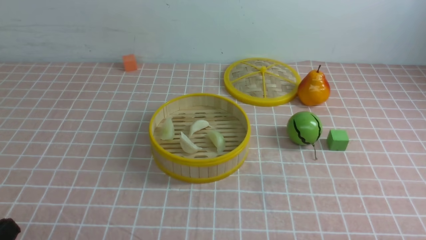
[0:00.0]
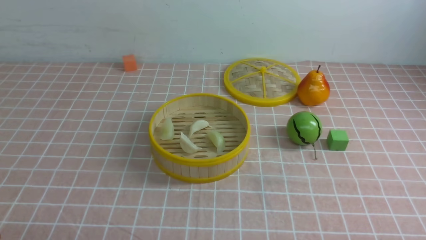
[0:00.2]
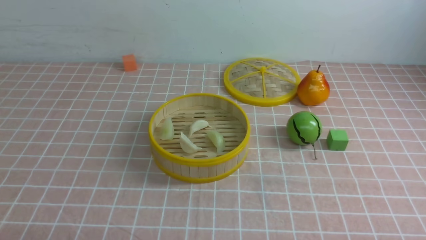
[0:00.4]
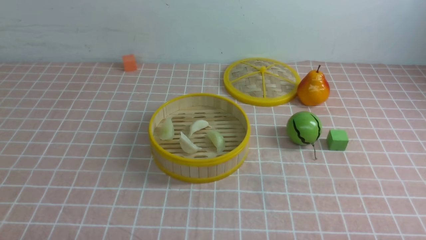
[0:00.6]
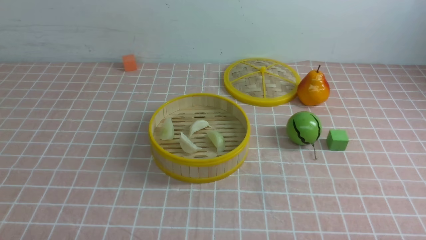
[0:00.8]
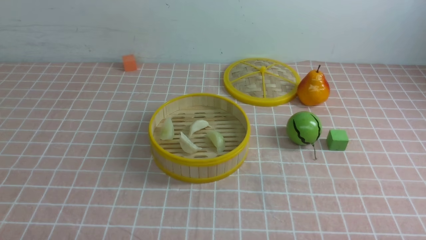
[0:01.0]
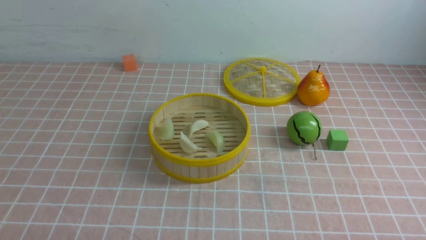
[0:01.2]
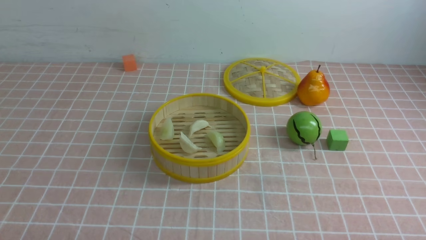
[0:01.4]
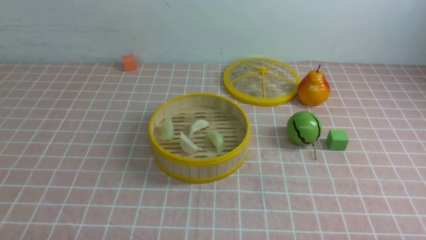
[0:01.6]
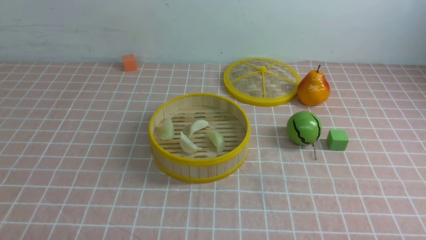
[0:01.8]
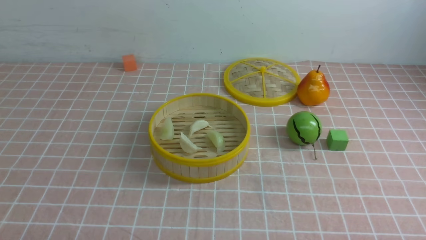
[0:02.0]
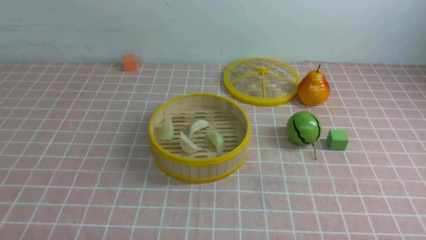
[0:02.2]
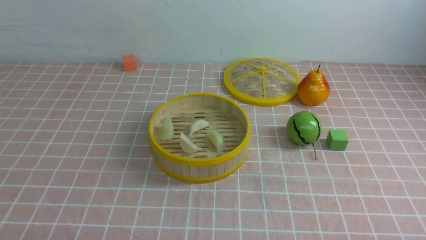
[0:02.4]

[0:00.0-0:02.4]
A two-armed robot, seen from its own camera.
Task of the whole recording: put the dumplings into the steamer on the table with the pink tablecloth.
0:01.2 to 0:02.4: Both grippers stay about where they are.
